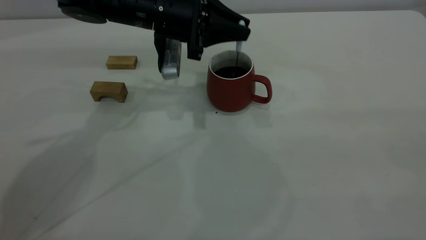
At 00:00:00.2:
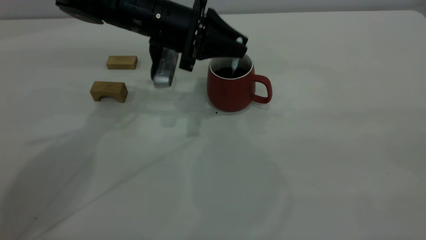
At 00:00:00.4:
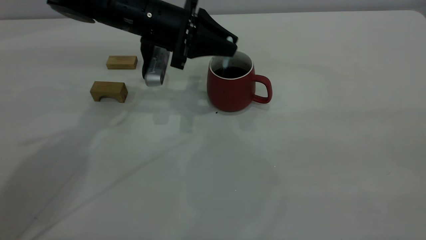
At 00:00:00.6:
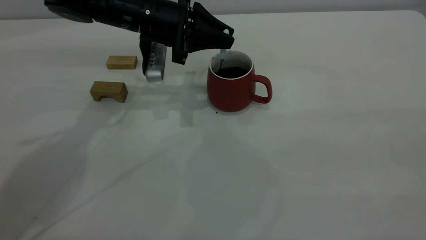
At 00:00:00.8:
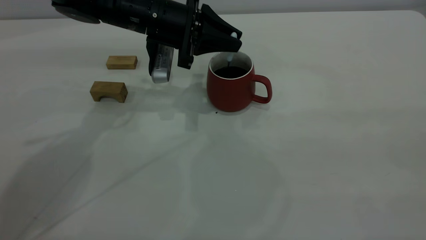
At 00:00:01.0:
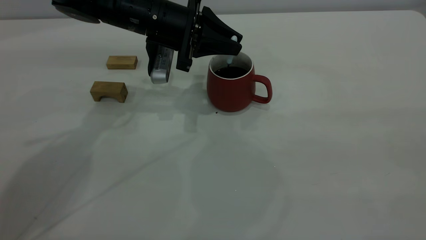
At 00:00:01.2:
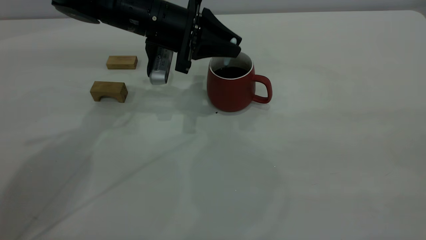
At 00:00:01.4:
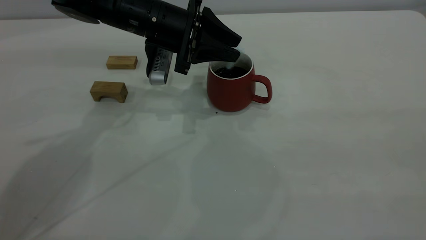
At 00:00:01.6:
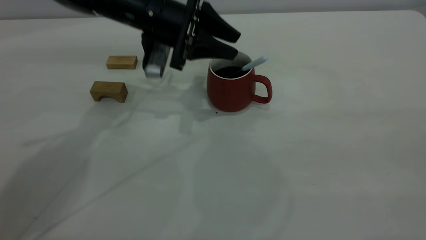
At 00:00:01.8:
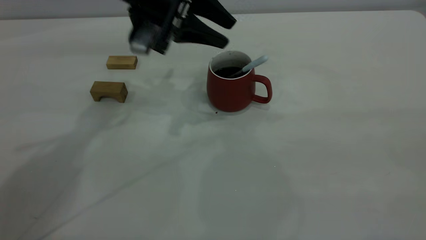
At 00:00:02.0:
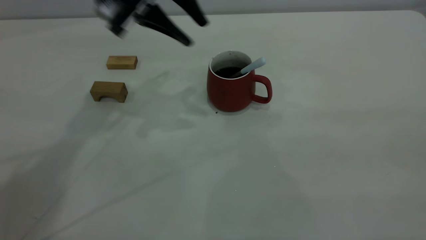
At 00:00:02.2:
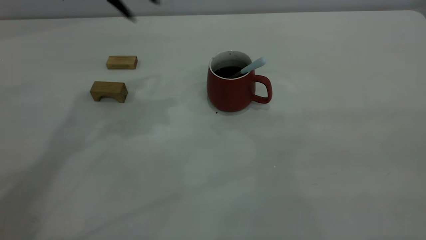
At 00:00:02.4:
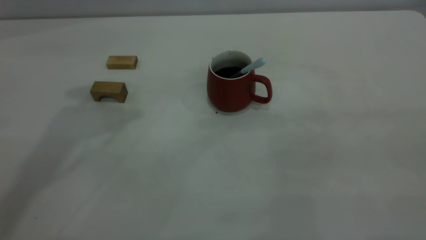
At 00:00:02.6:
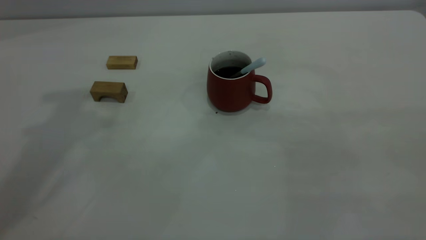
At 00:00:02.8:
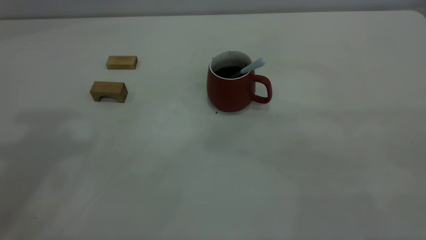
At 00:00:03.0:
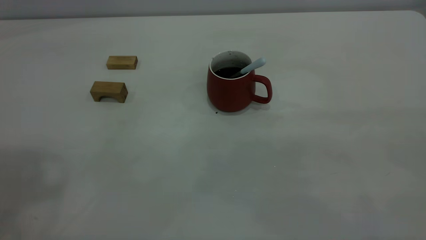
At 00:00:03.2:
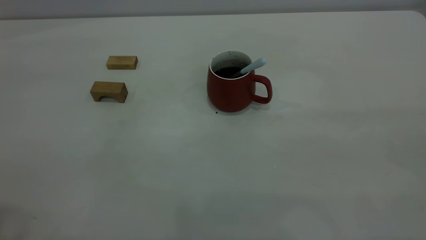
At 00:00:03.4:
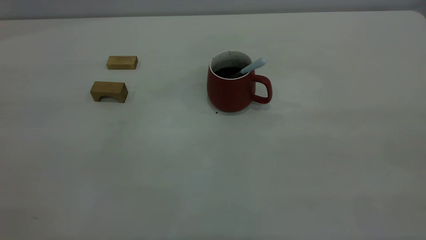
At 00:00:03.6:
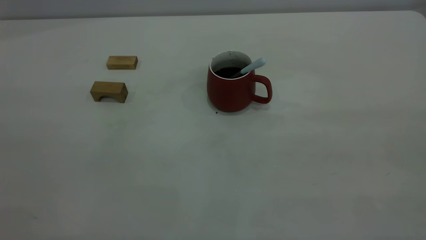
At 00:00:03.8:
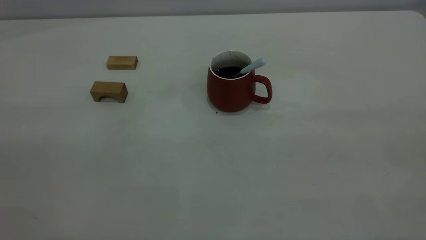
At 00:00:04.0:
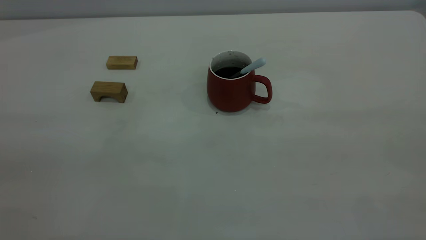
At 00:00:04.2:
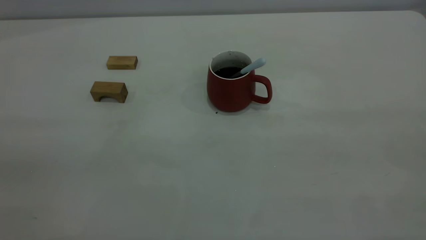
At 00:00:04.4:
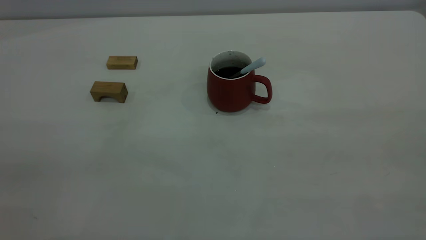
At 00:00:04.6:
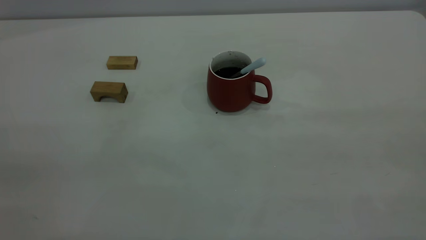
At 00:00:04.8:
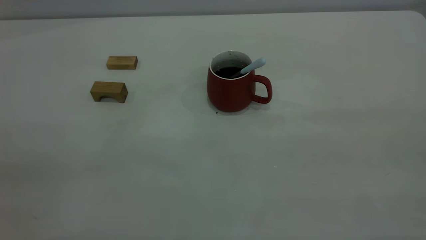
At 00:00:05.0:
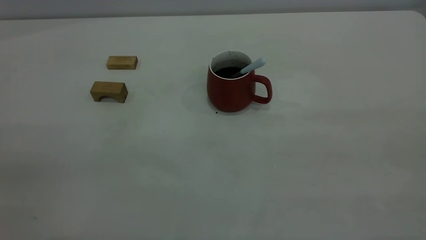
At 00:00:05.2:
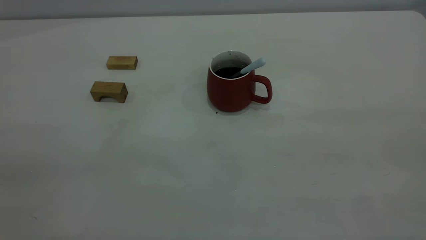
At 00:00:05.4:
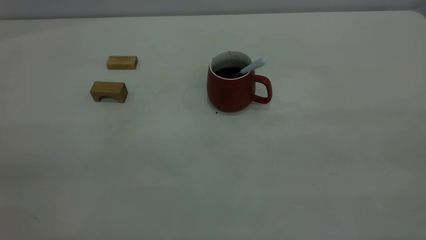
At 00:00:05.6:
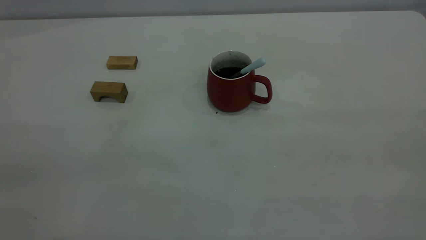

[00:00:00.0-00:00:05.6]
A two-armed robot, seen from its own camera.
00:00:00.0 to 00:00:01.4: The left gripper opens its fingers.
00:00:01.4 to 00:00:02.8: The left gripper shifts about 40 cm upward and backward.
00:00:04.2 to 00:00:05.6: The two grippers keep their place.
